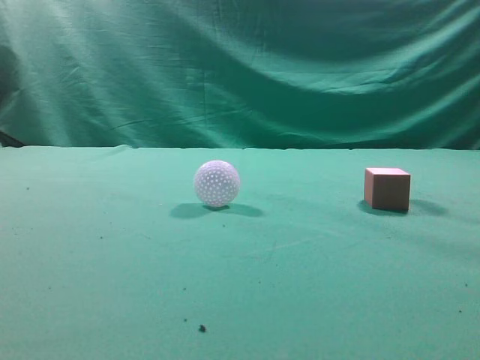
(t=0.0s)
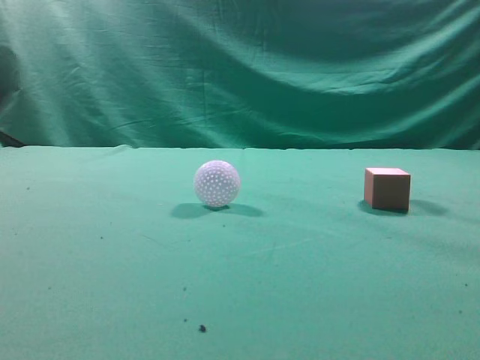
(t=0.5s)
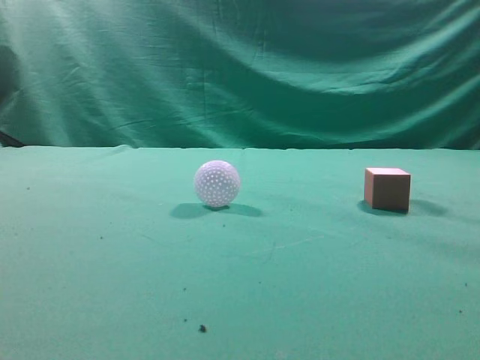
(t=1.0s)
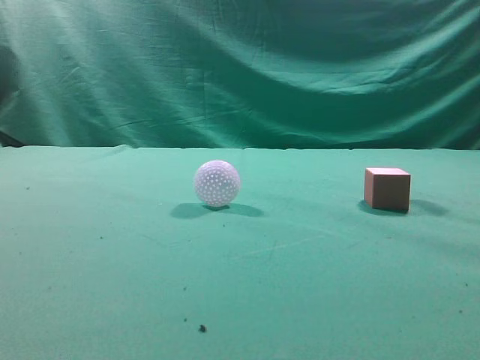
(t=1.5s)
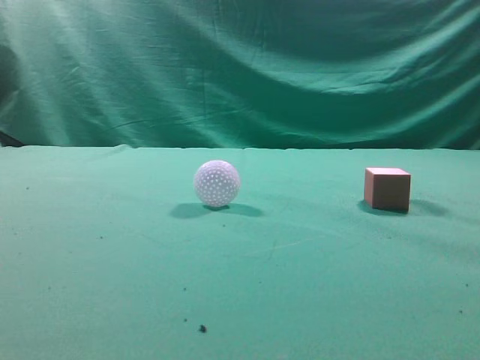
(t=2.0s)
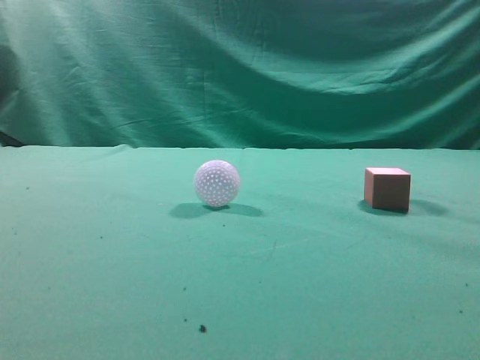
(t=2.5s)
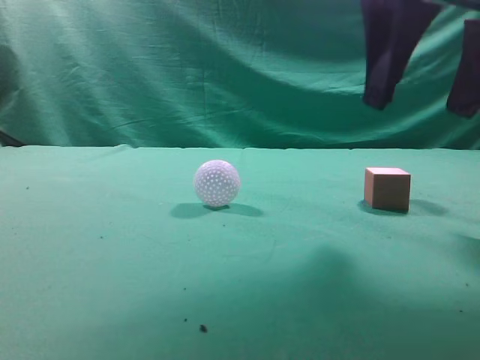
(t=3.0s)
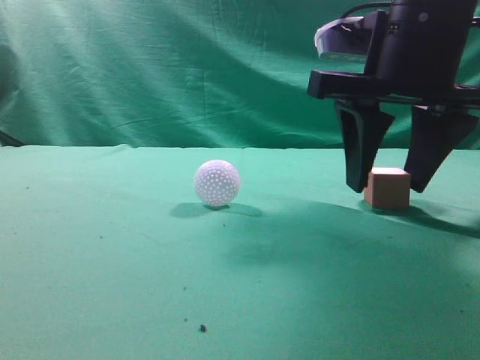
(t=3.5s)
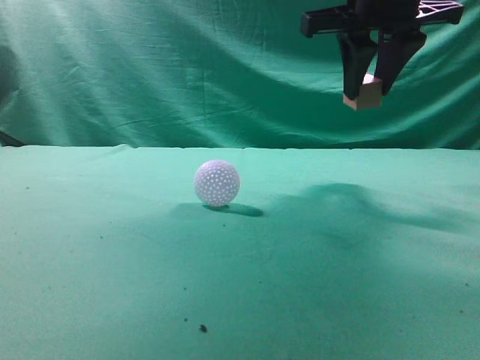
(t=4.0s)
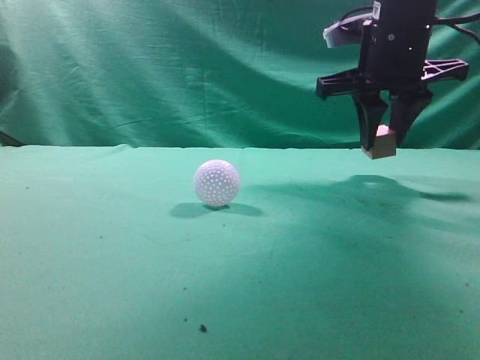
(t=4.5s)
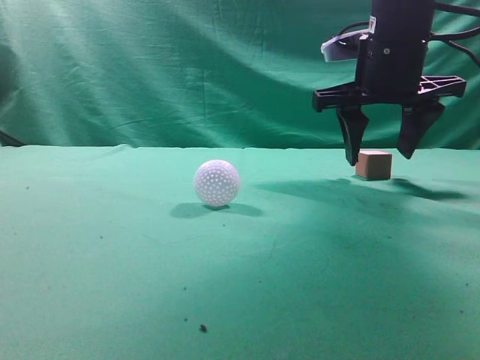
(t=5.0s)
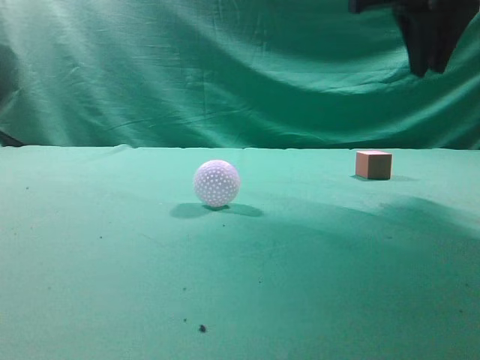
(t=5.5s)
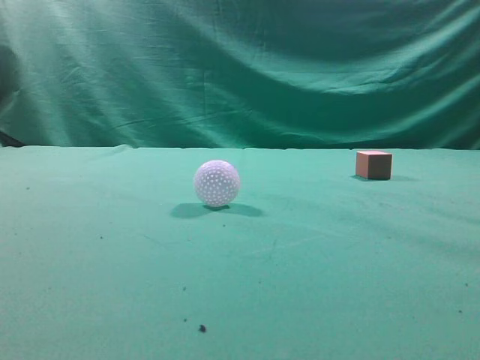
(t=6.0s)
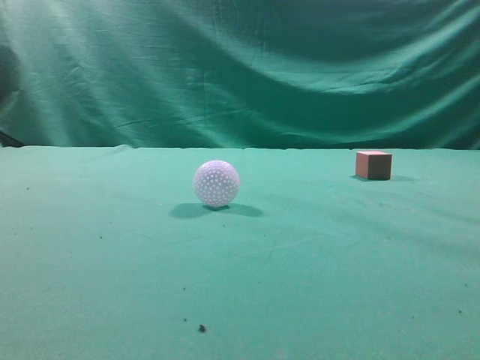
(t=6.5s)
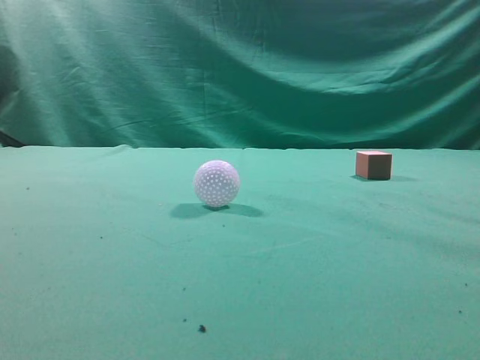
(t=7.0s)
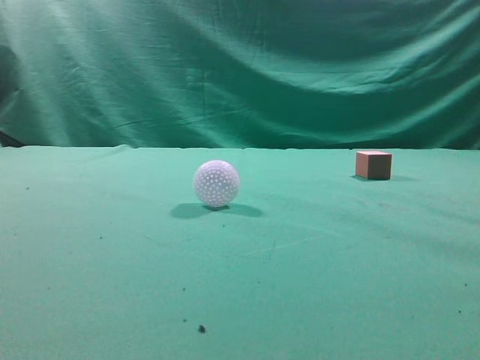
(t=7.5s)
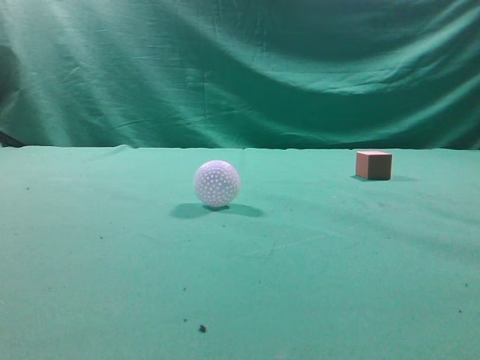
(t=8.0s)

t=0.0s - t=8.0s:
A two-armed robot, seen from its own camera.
Task of the whole recording: pick up the cube block and place it in another position on the table.
Step, t=0.0s - t=3.5s: Pick up the small cube.
Step, t=4.0s - t=5.0s: Place the small cube on the ahead of the table.
t=2.0s - t=4.0s: The right gripper goes roughly 30 cm forward and to the left, and opens.
t=4.0s - t=6.0s: The right gripper goes roughly 20 cm backward, upward and to the right, and closes.
